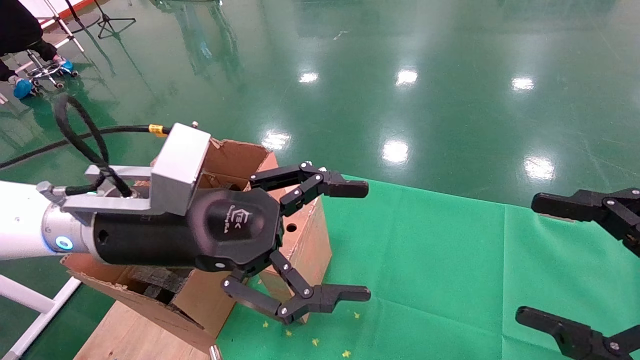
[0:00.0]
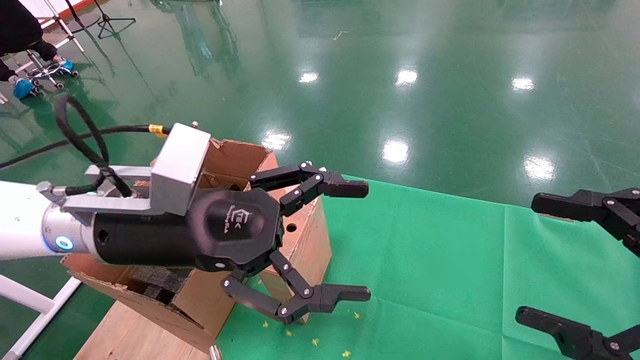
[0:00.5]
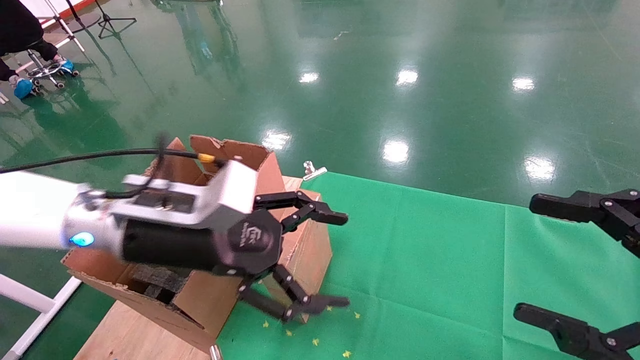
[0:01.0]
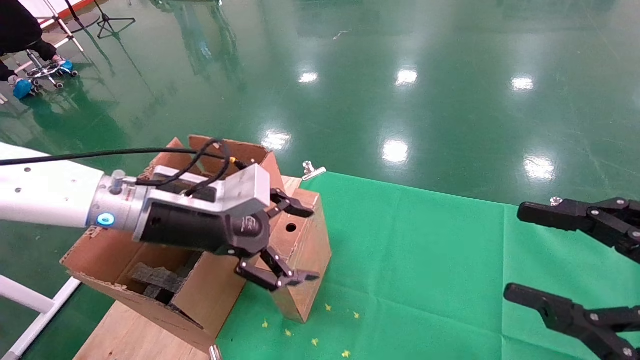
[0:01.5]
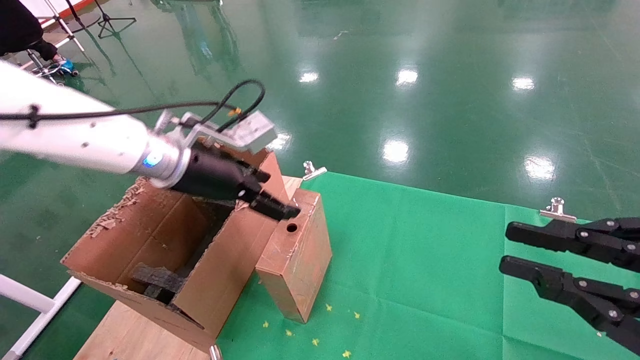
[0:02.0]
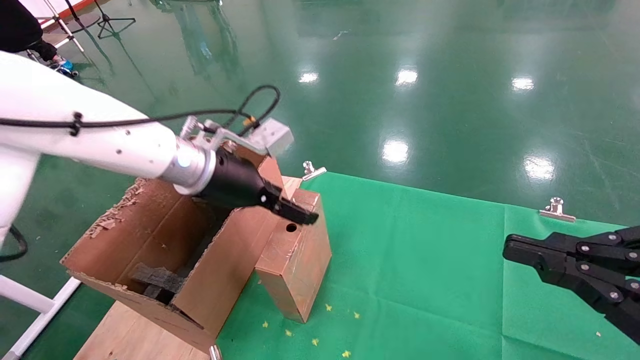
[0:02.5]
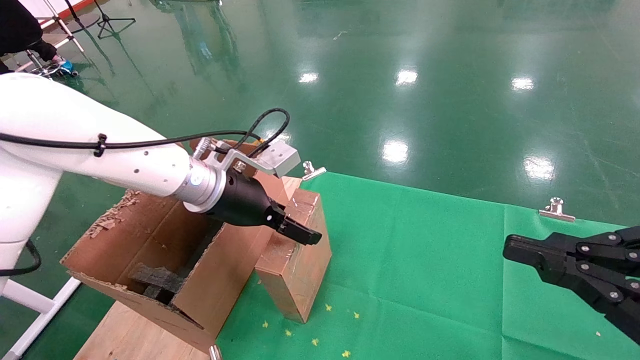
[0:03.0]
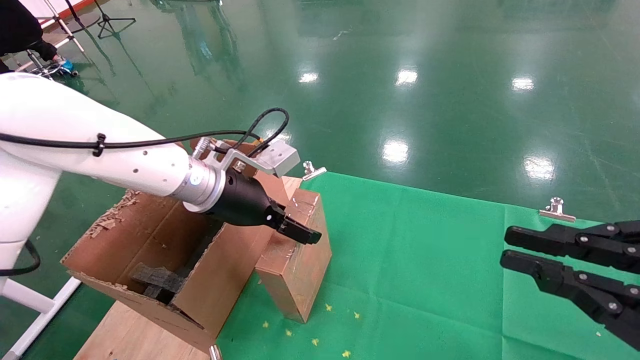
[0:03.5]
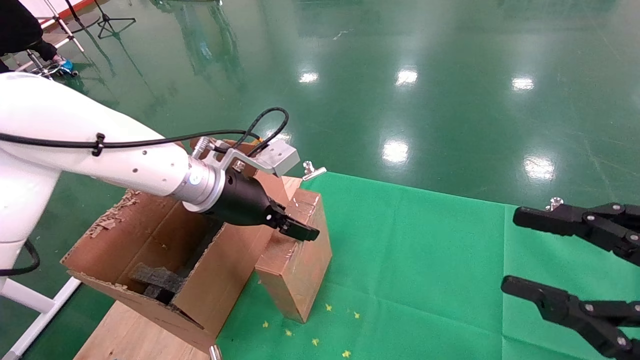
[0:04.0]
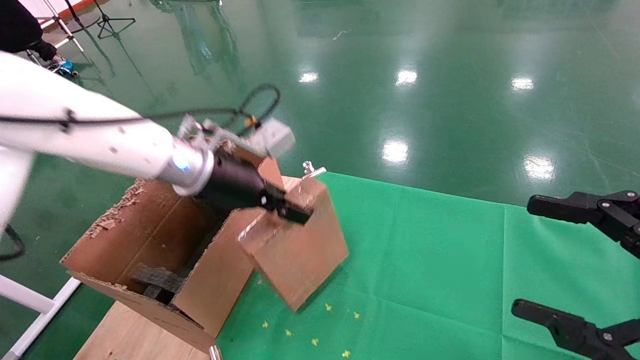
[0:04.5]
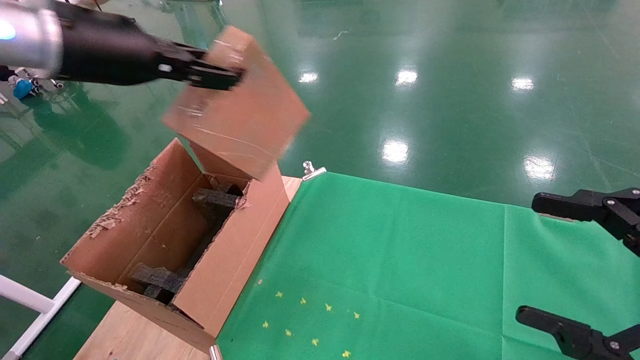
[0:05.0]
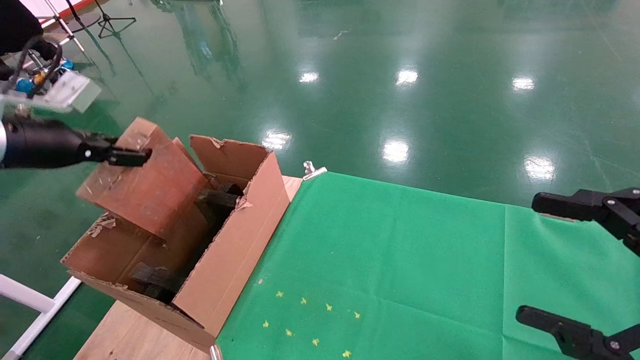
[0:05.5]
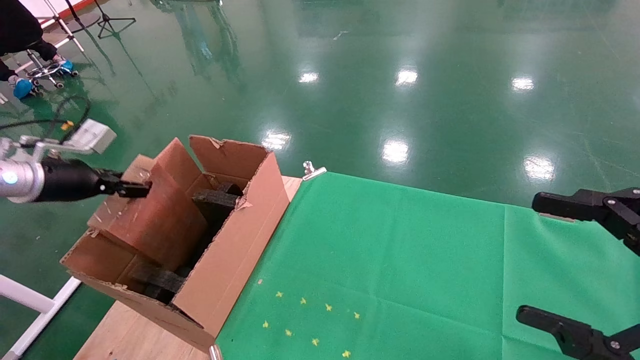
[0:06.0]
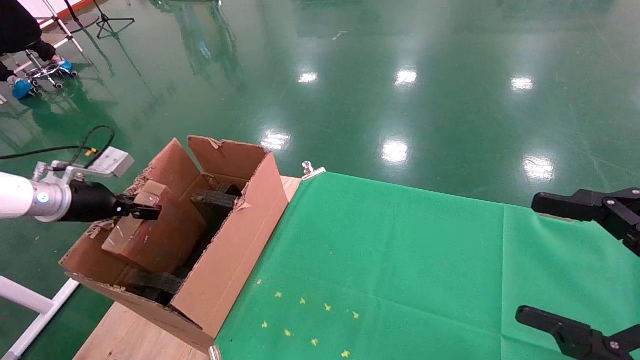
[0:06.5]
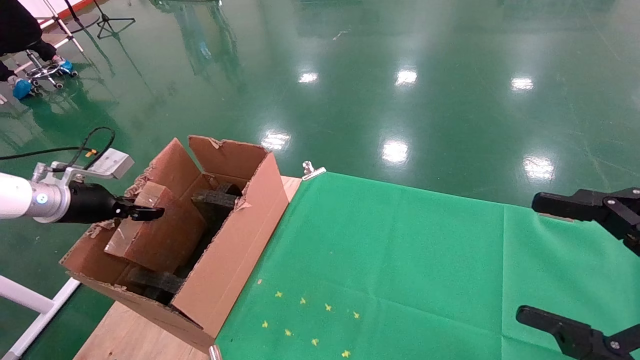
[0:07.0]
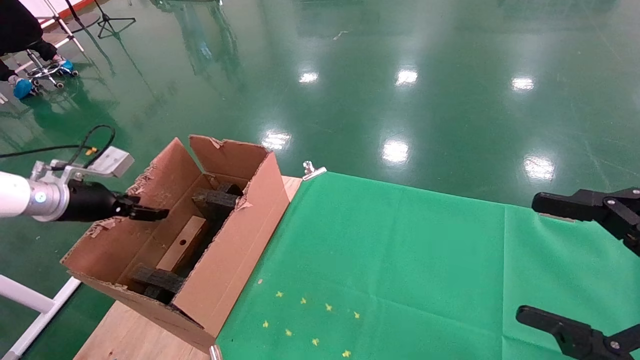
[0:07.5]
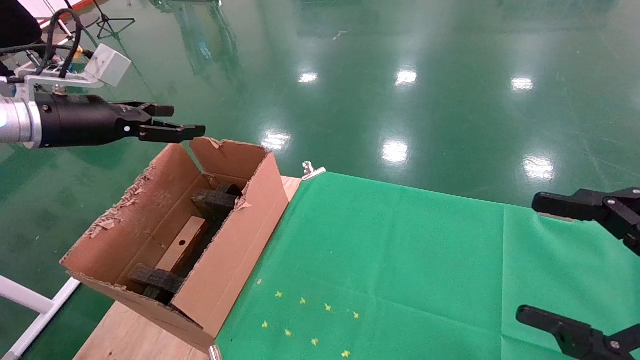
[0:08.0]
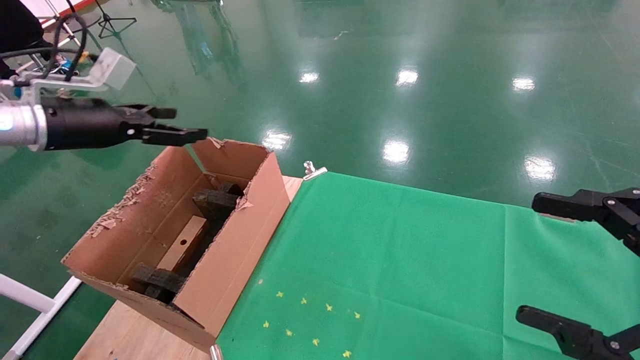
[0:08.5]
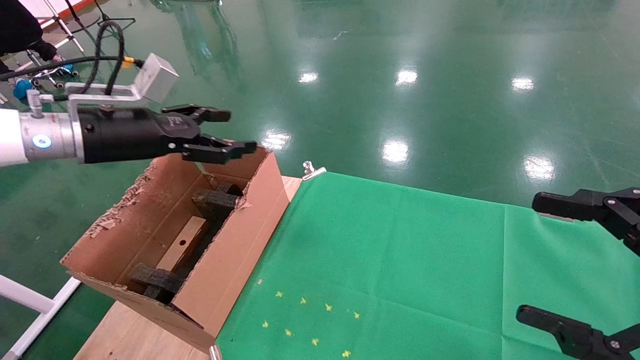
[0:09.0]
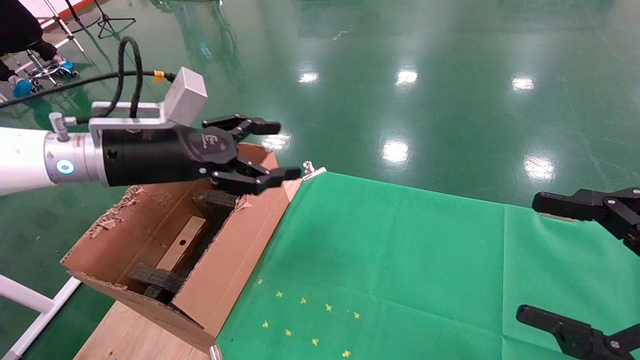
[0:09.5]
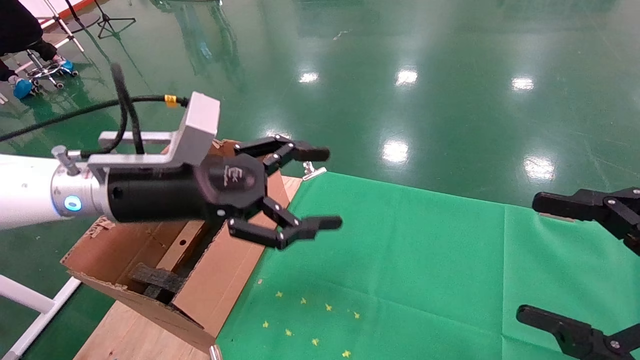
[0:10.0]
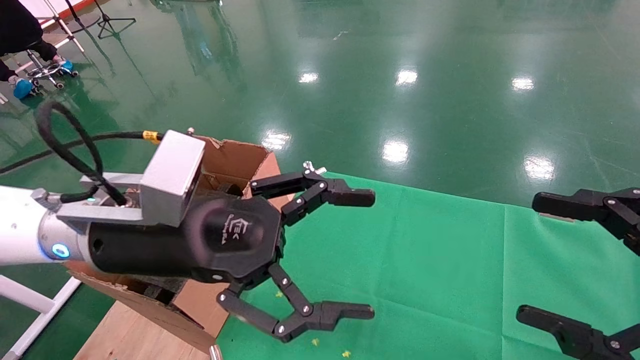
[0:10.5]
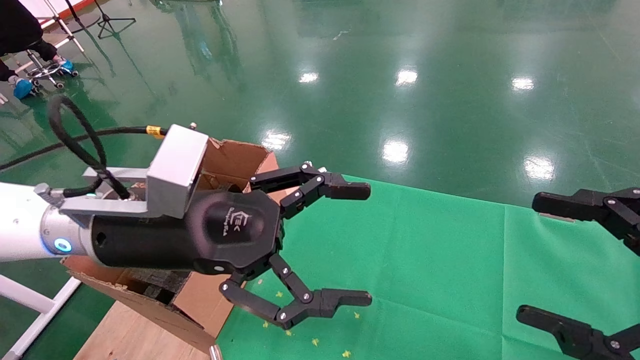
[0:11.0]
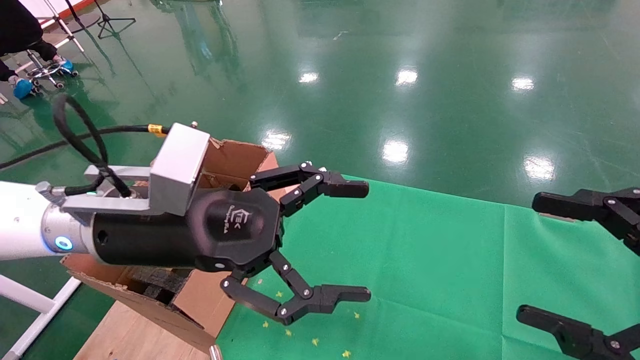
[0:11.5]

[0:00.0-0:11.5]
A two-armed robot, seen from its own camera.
Task of the whole recording: using a robotic arm to pick up a cardboard box and palace it the carton.
Step, 0:01.5 to 0:04.0: Pick up the mouse and the power cord paper box.
Step, 0:04.5 to 0:07.0: Place the mouse and the power cord paper box into the container.
0:00.0 to 0:02.0: The left gripper travels forward by about 10 cm. The right gripper closes its fingers.
0:02.0 to 0:04.0: The left gripper closes.
0:04.0 to 0:06.0: The right gripper opens up; the left gripper travels to the left by about 30 cm, and closes its fingers.
0:06.0 to 0:07.5: The left gripper opens.
0:07.5 to 0:09.5: The left gripper shifts about 20 cm to the right, and opens up.
0:09.5 to 0:11.5: The left gripper travels to the right and backward by about 10 cm.

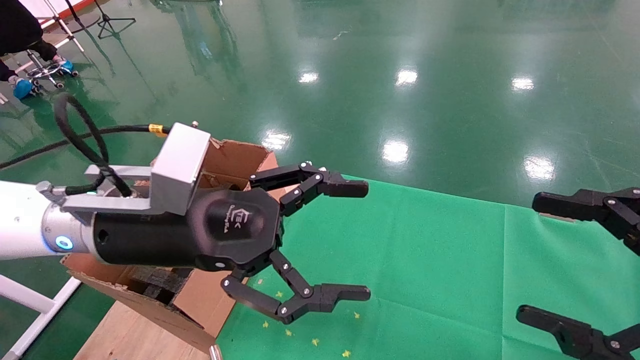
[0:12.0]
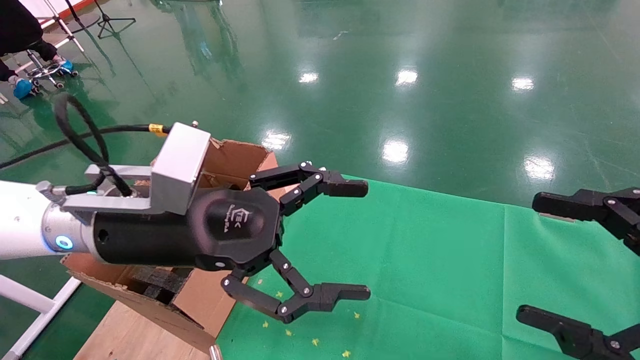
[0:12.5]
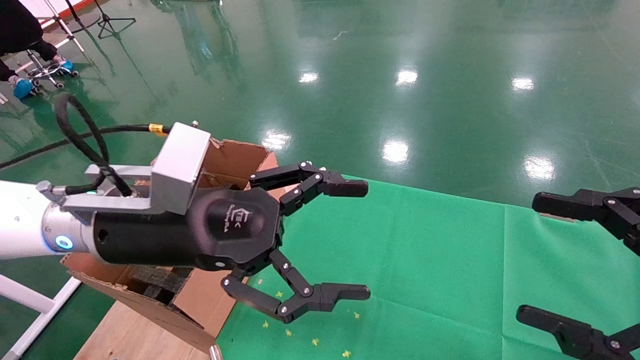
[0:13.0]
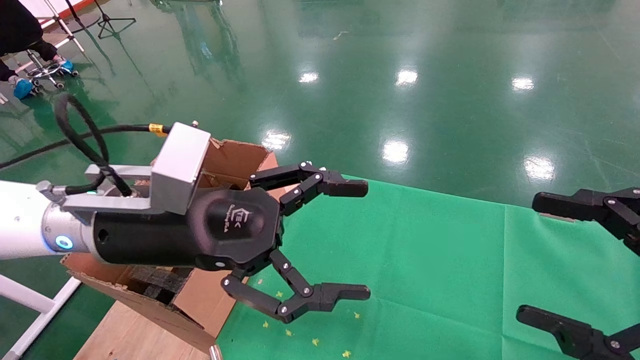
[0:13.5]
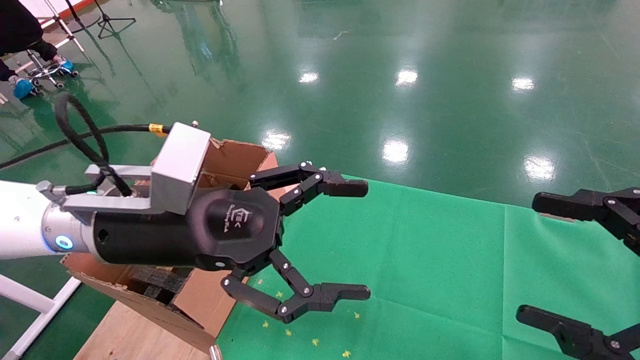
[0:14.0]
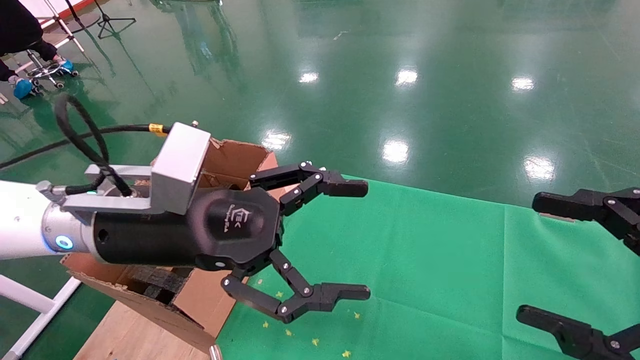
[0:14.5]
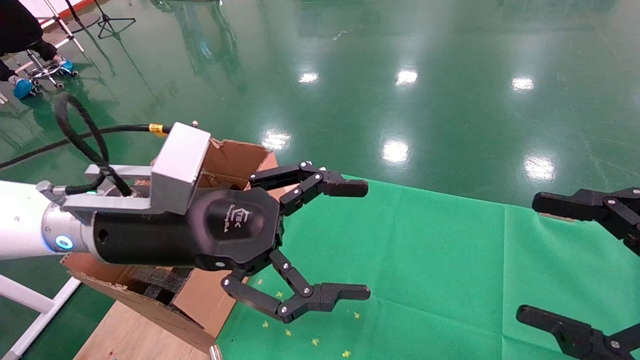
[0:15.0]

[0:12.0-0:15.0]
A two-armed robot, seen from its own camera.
Task of the whole recording: using a robotic arm to pick up a cardboard box and palace it the carton.
0:12.0 to 0:15.0: Both grippers stay put.
